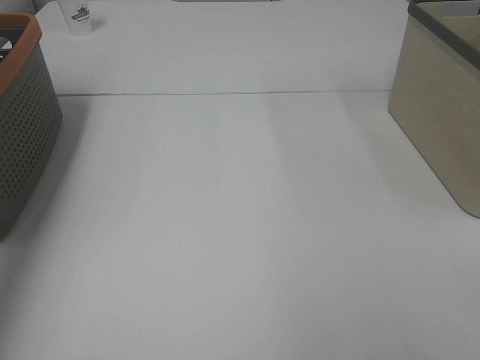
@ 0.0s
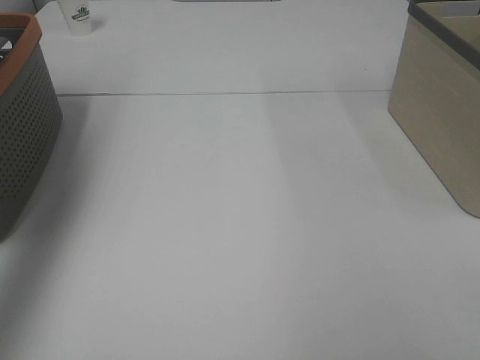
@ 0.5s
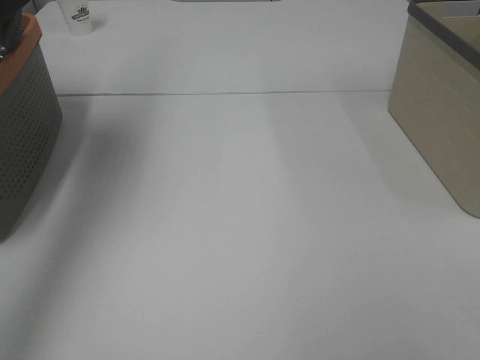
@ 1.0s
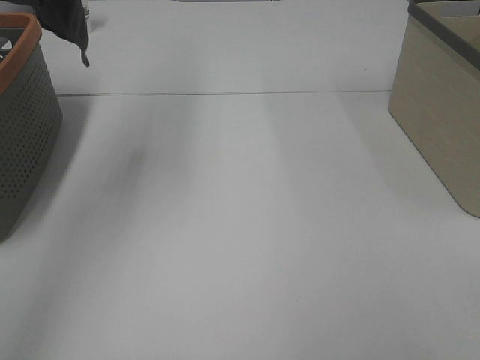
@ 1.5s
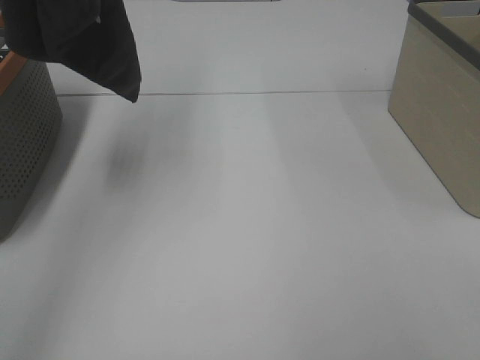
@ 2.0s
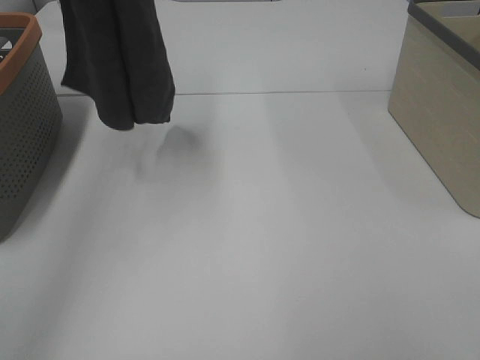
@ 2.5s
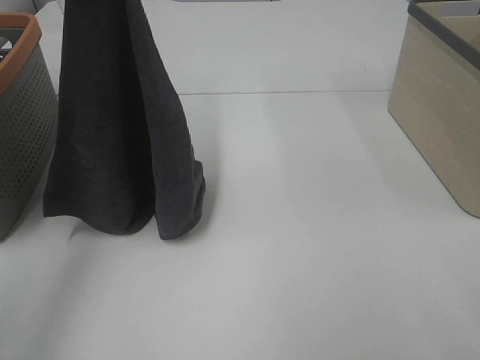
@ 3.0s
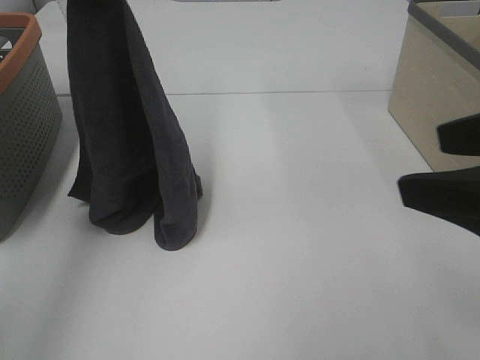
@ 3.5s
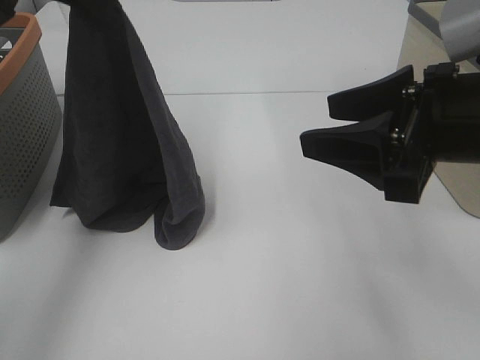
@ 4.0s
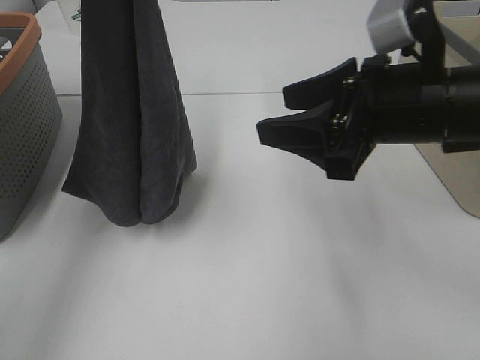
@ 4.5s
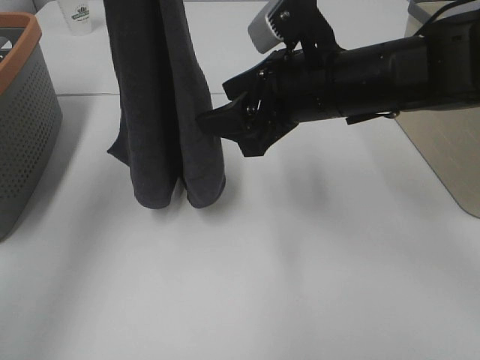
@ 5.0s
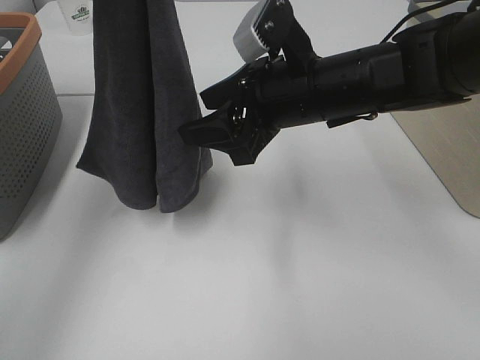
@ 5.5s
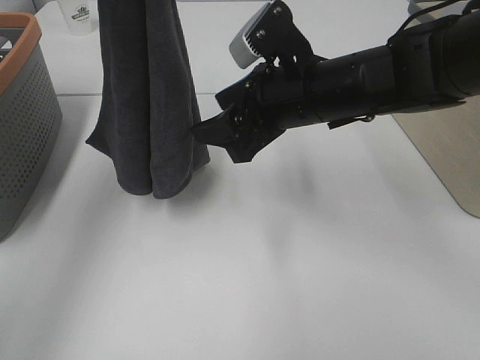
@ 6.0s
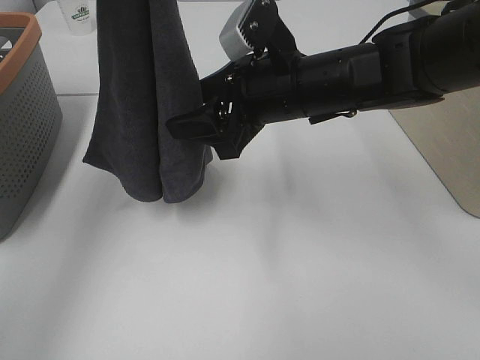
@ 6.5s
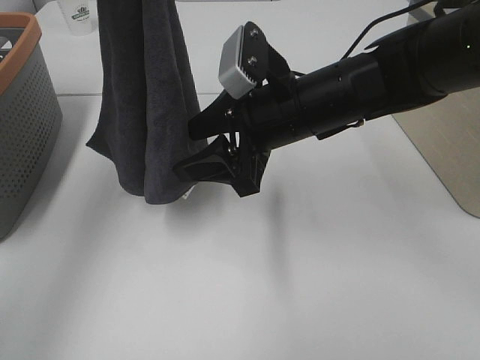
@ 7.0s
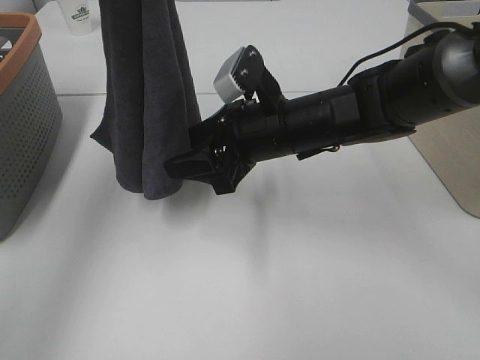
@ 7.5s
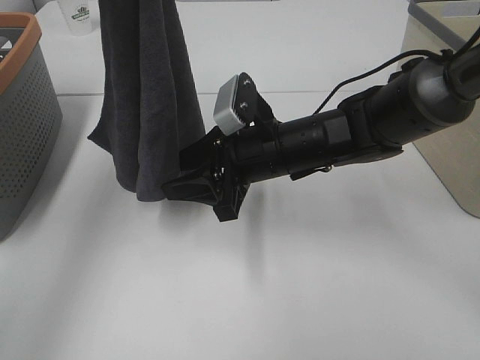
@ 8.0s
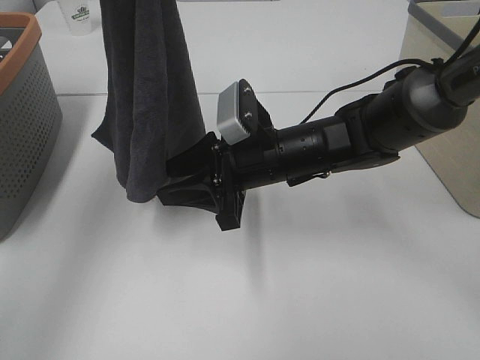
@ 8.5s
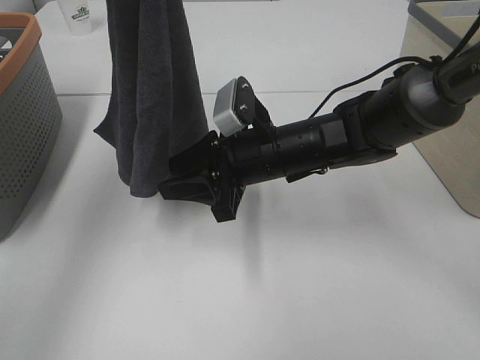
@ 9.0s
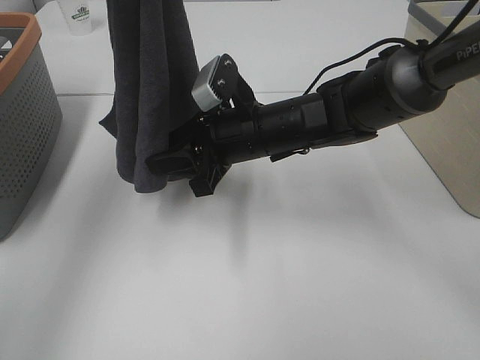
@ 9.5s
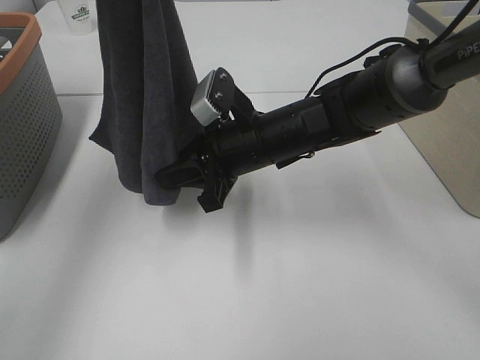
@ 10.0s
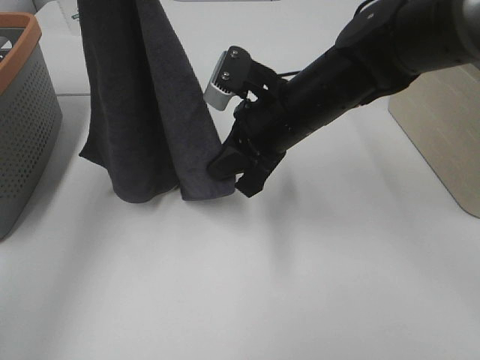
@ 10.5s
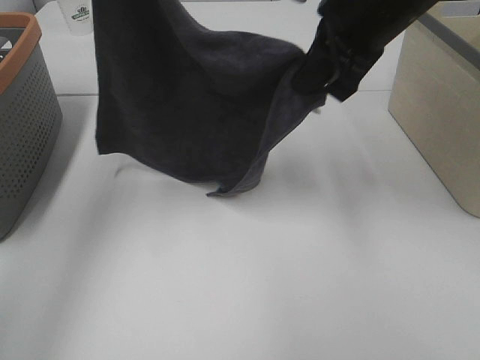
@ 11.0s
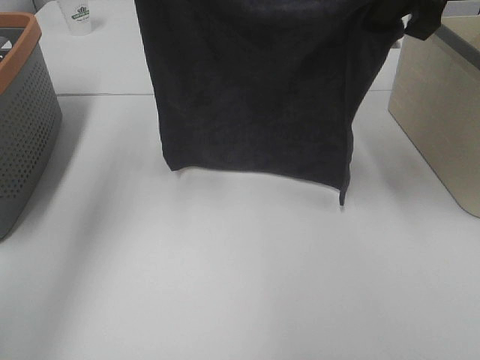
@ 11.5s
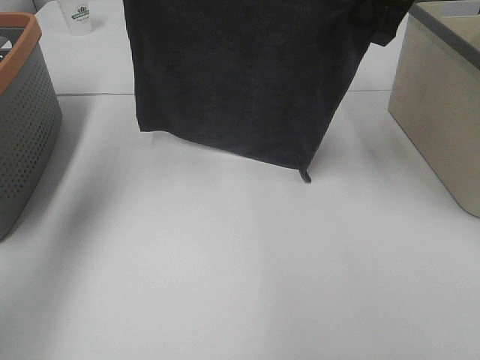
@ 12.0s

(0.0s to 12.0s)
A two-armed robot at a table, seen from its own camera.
Task of the whole recording: Remove the towel and place it.
Step, 1.5s - 8.0s: Right hand: grab a corner of the grey towel and straighten it.
Step, 8.5s - 10.0s: Right hand: spread the grey towel flat on the table.
0.0s - 2.0s: The left gripper moves to the right, approximately 15 cm.
2.0s - 4.0s: The left gripper heads downward, covering roughly 15 cm. Meanwhile the right gripper goes about 25 cm forward and to the left.
4.0s - 6.0s: The left gripper travels upward by approximately 5 cm. Meanwhile the right gripper travels forward and to the left by approximately 15 cm.
6.0s - 8.0s: The right gripper travels downward by about 10 cm.
8.0s - 10.0s: The right gripper closes its fingers.
10.0s - 12.0s: The right gripper goes about 25 cm upward and to the right. Meanwhile the left gripper goes about 10 cm downward and forward.

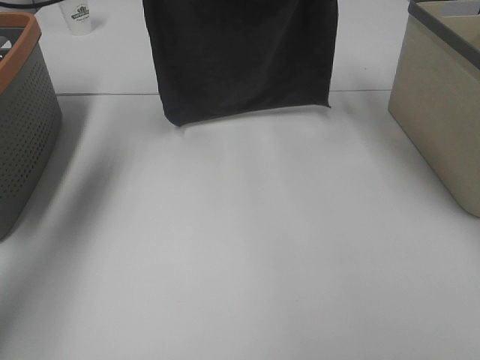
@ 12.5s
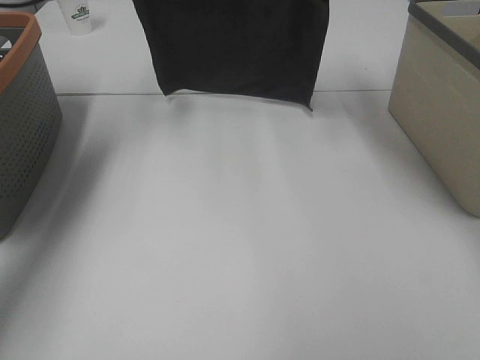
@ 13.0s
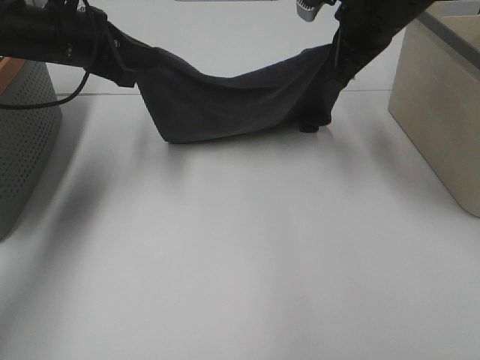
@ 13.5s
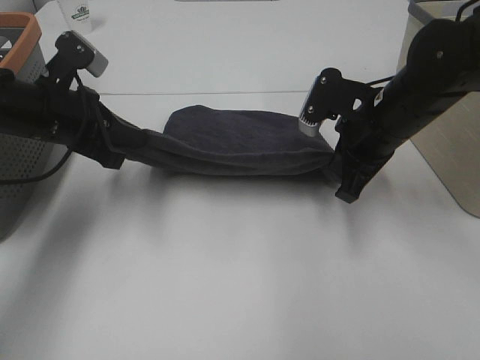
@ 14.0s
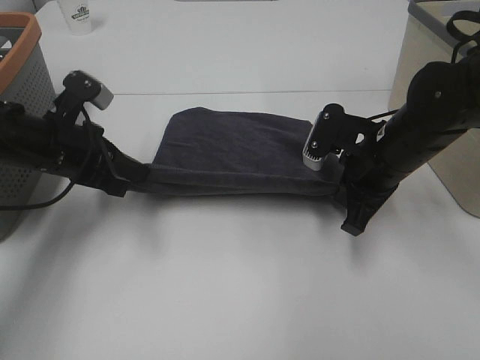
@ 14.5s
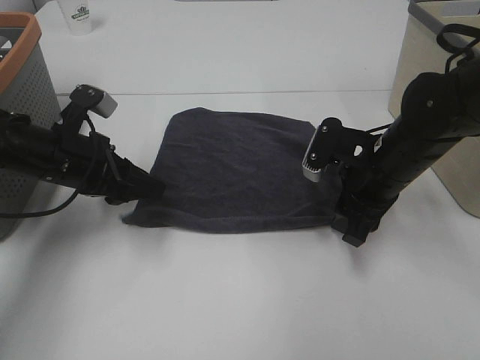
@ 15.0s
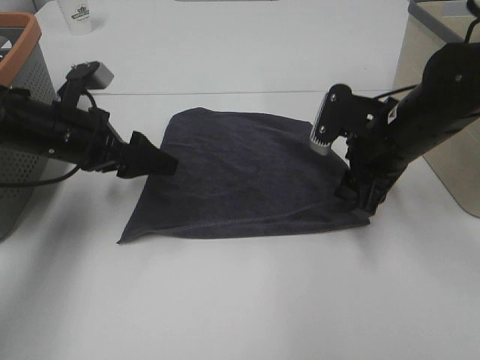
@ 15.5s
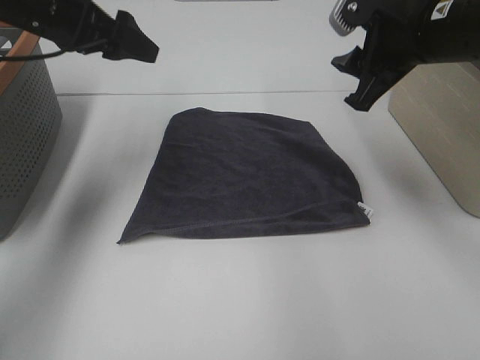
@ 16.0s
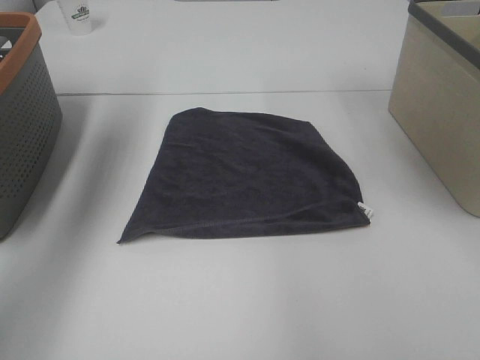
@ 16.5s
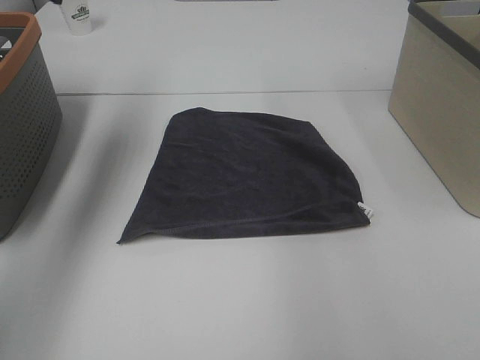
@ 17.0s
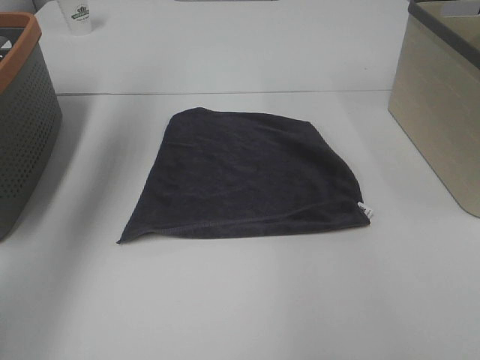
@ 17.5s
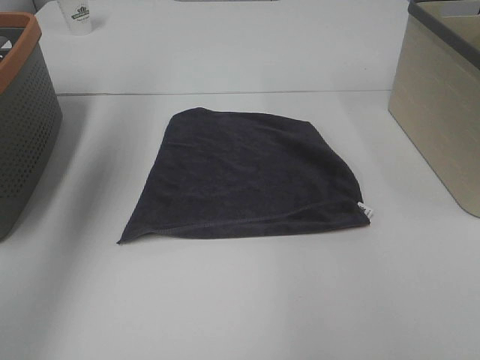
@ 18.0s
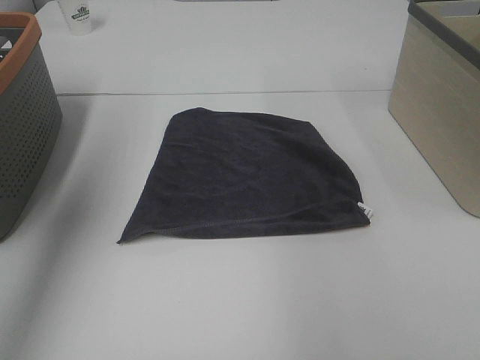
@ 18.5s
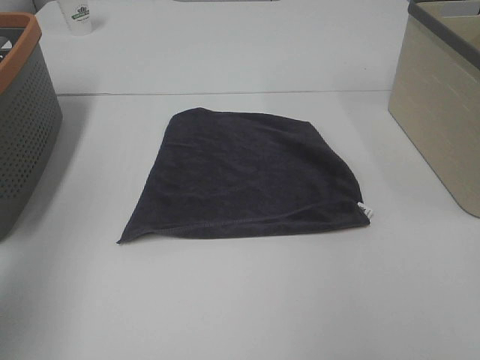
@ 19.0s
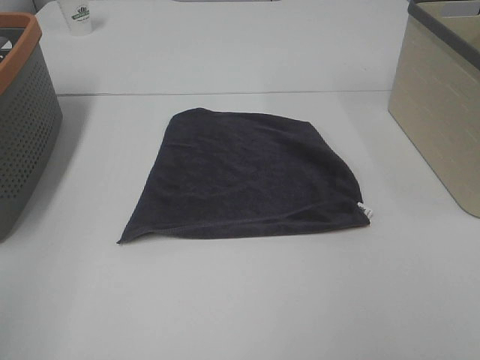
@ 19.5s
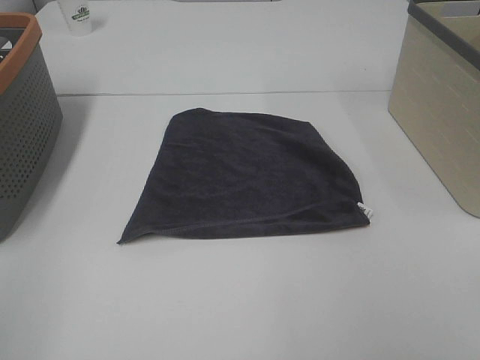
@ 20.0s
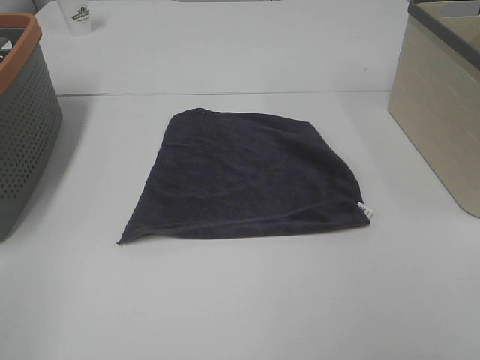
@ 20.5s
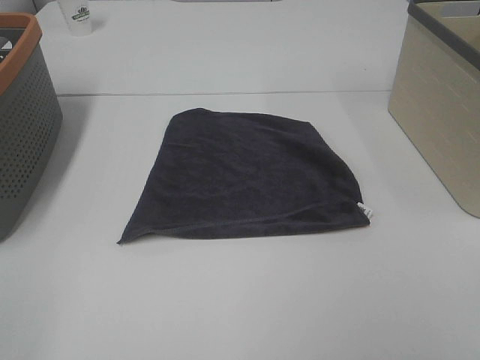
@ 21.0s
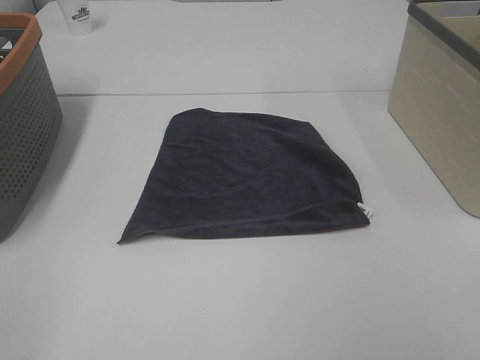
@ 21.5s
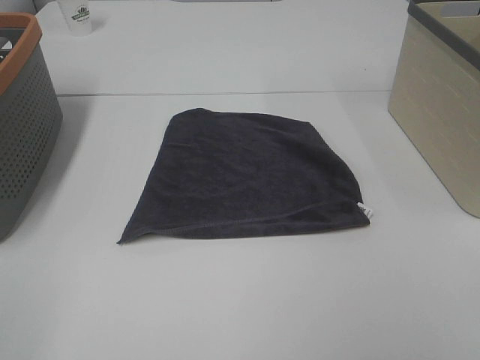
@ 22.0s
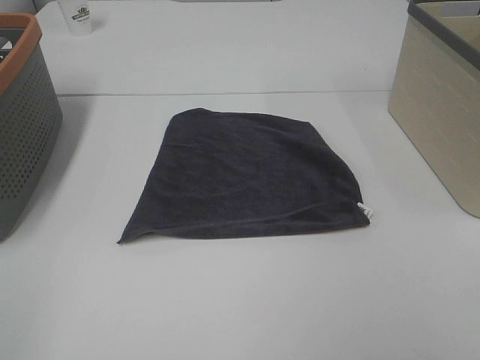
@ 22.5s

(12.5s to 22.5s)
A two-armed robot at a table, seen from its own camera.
Task of the whole recording: Remove the towel and place it.
12.5s - 14.5s: Both grippers travel together downward and backward, some 25 cm.
14.5s - 16.5s: The left gripper travels upward and forward by about 25 cm, and opens up; the right gripper travels upward by some 25 cm, and opens up.
16.5s - 18.5s: The right gripper is displaced to the right and backward by about 15 cm; the left gripper travels backward and upward by some 15 cm.
18.5s - 20.5s: The left gripper heads backward and downward, covering roughly 30 cm.

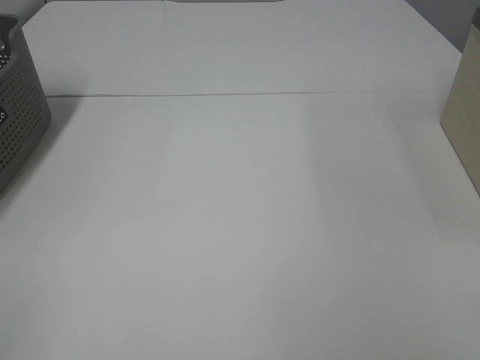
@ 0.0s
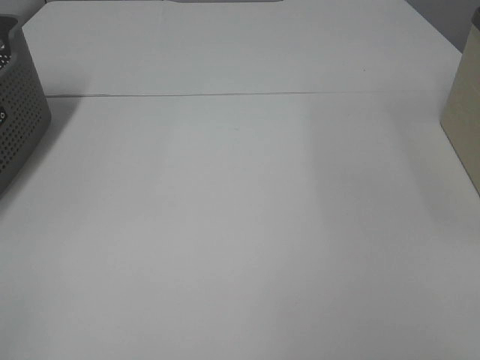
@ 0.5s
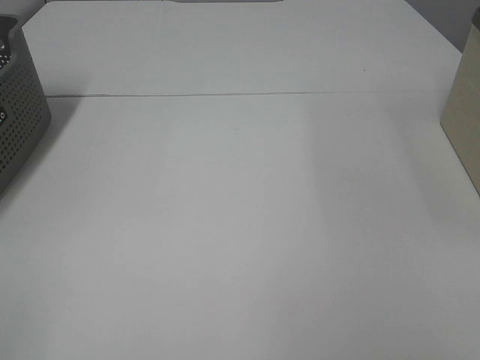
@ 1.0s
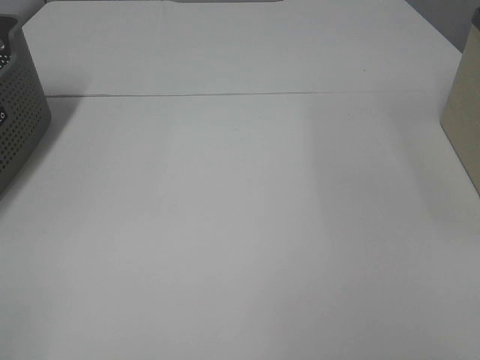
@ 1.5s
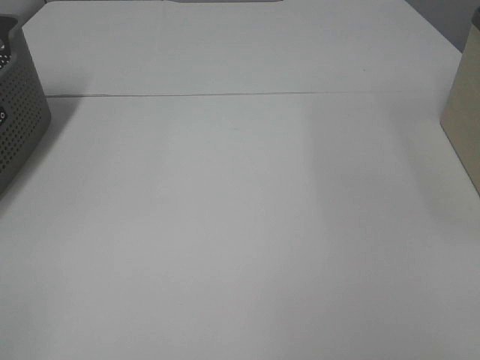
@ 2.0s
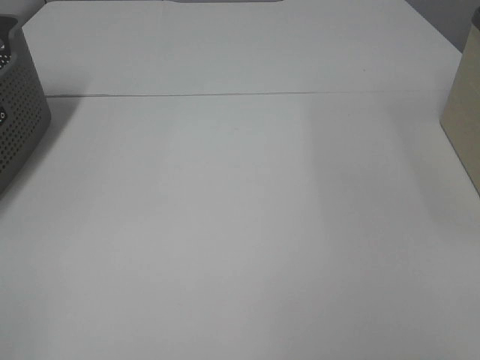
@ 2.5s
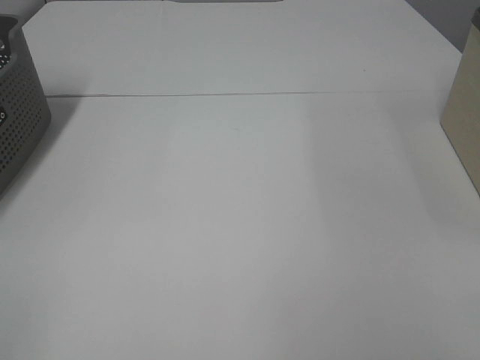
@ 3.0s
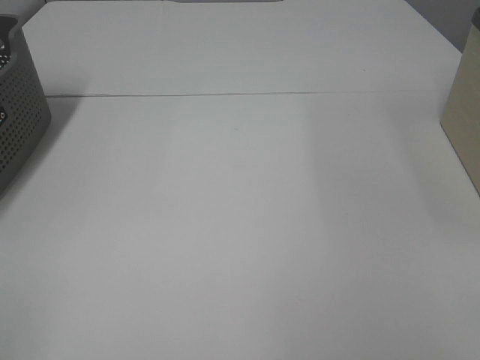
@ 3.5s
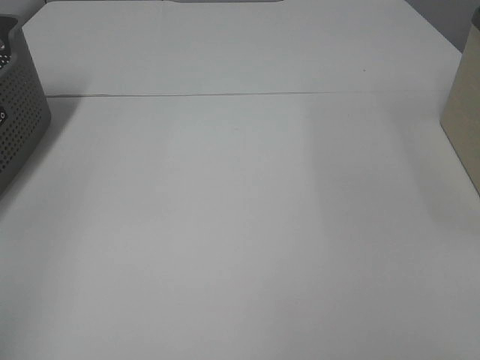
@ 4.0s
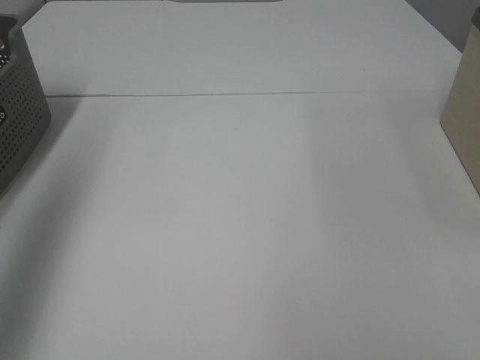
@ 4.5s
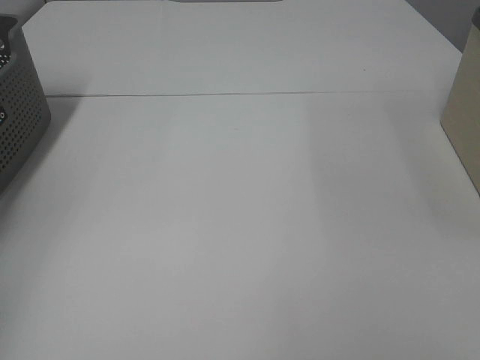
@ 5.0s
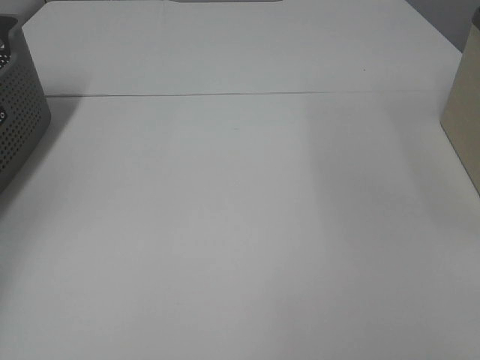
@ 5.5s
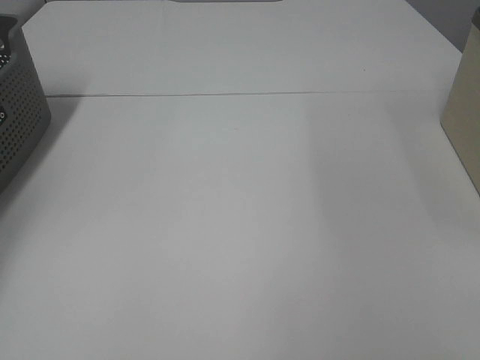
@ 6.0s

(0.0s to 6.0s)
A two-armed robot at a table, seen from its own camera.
Task of the whole recording: Remove the towel and place it.
0.0s - 2.0s: The two grippers keep their place.
4.0s - 6.0s: The left gripper heads forward and to the left, covering about 40 cm.
